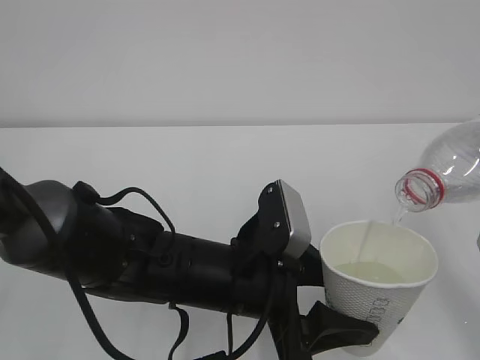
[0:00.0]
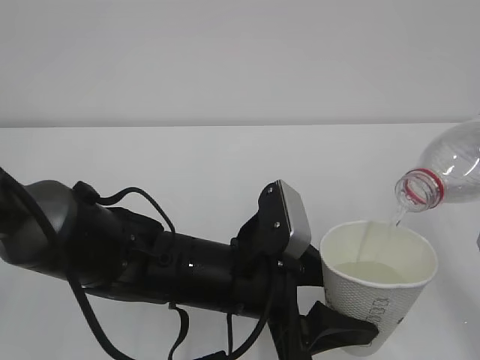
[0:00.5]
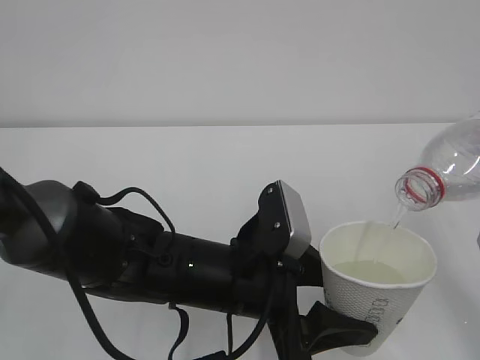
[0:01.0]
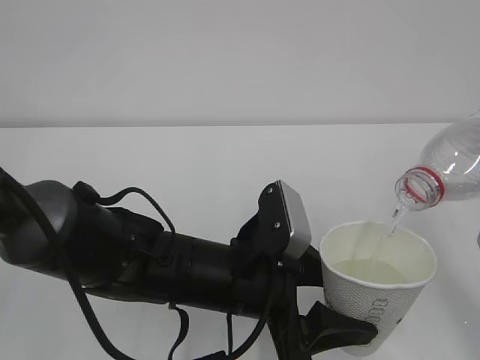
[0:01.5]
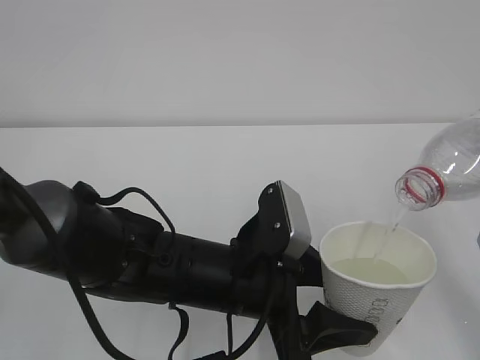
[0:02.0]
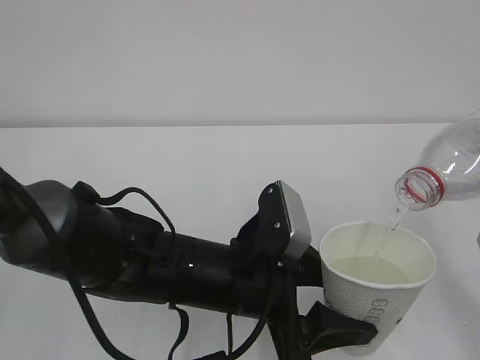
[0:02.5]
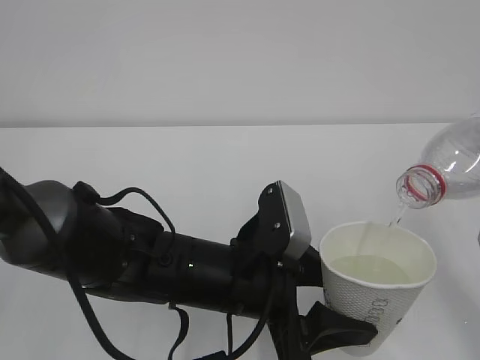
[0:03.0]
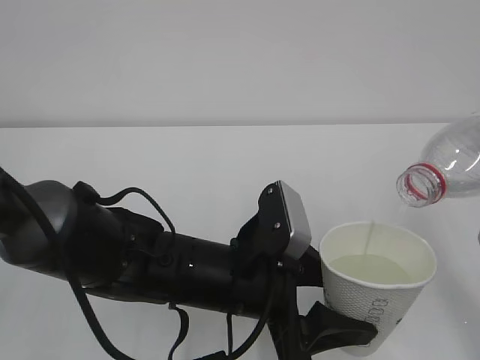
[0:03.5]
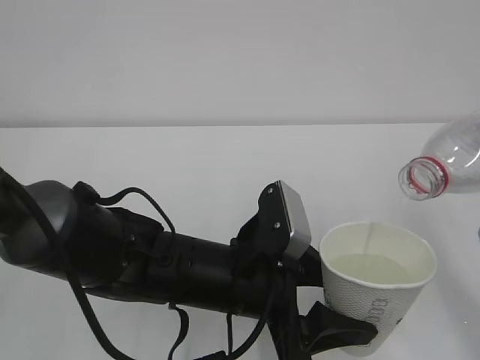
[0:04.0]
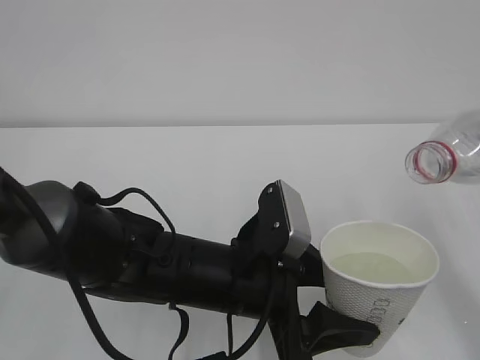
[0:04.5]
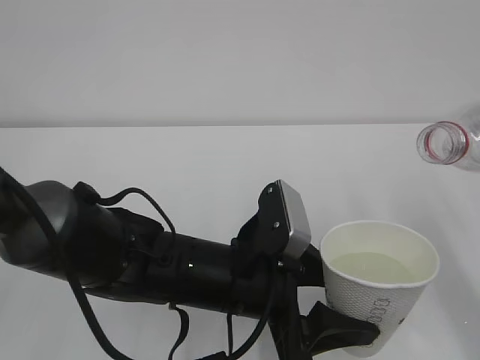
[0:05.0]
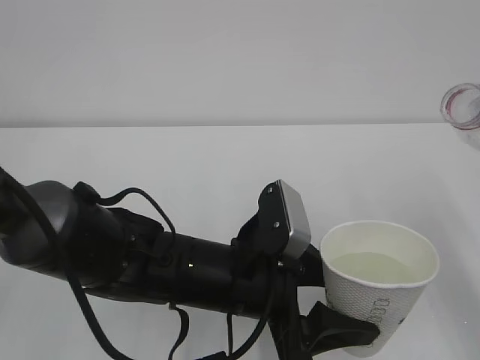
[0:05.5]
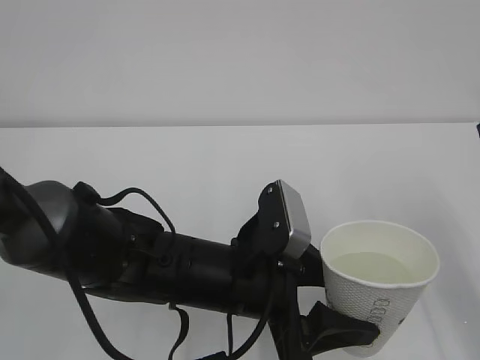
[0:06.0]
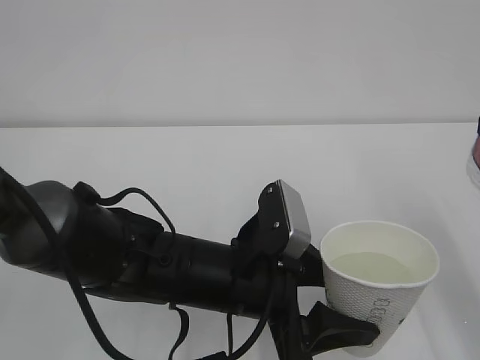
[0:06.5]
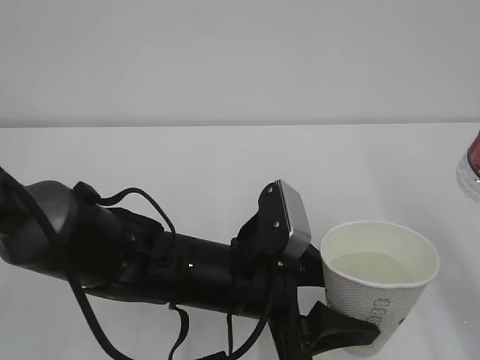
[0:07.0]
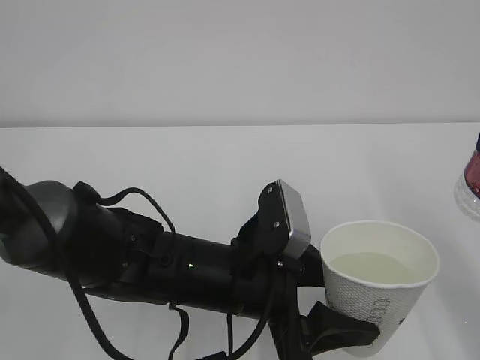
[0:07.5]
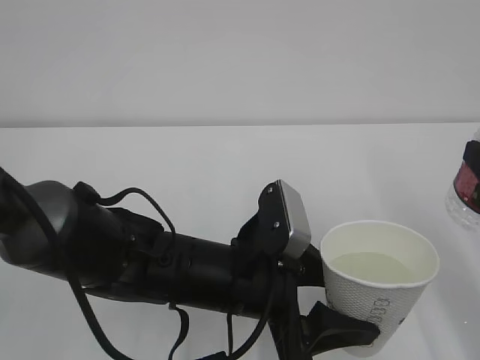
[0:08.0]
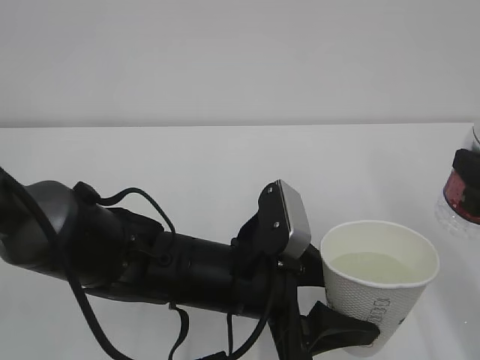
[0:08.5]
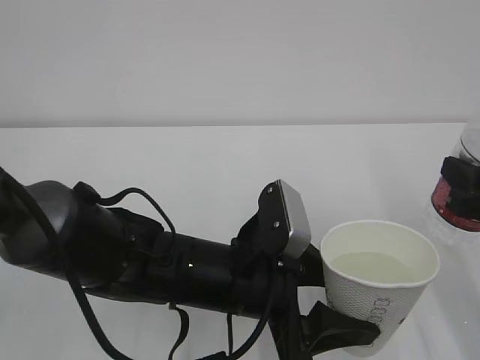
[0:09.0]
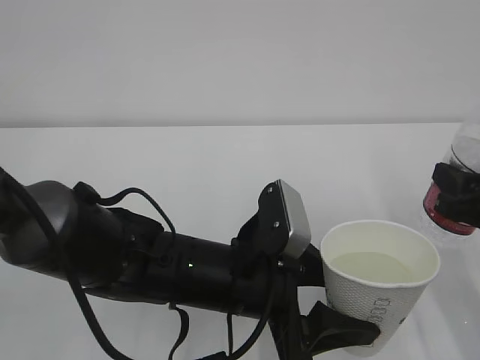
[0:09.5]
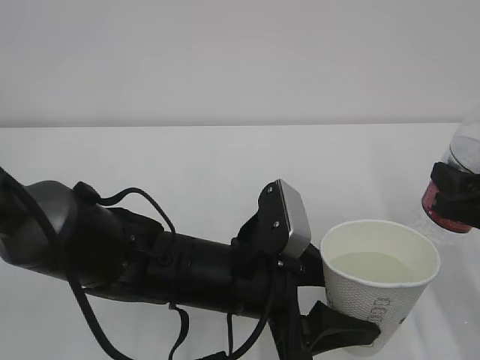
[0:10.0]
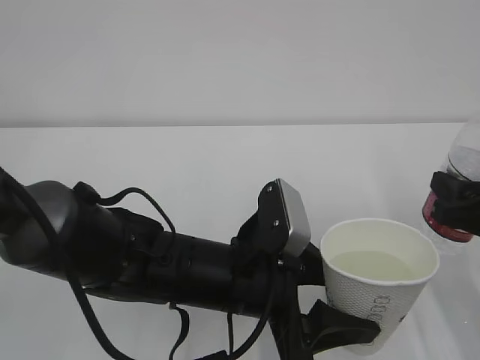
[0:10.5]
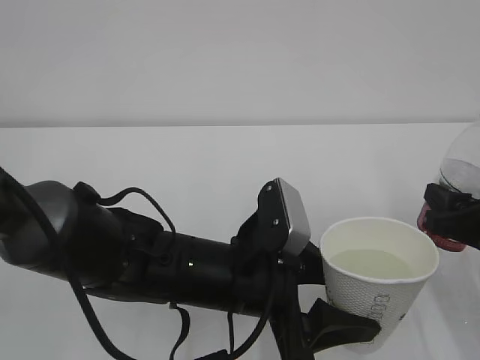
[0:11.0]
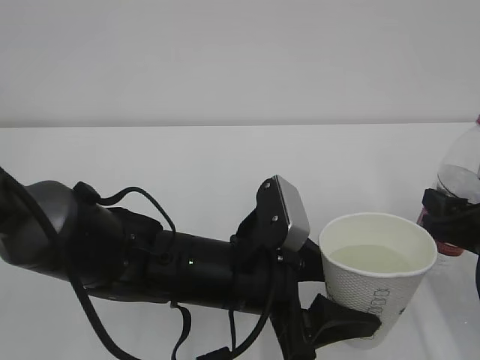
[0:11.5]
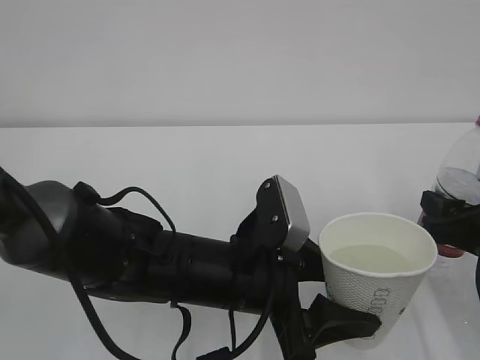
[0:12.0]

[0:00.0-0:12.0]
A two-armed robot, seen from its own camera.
0.0 to 4.0 s: Both grippers stay about where they are.
8.0 to 10.0 s: The right gripper shifts some 5 cm downward.
10.0 to 12.0 s: The grippers make only small movements.

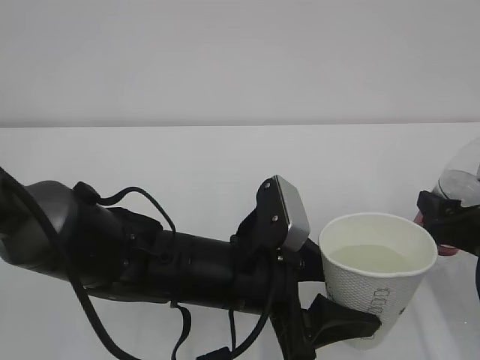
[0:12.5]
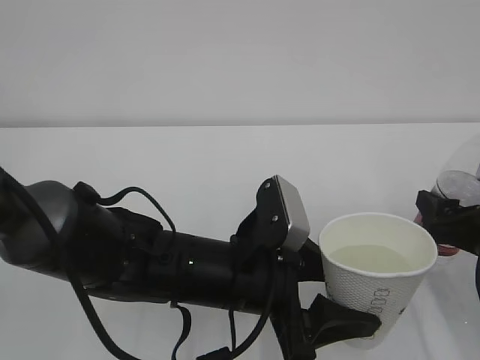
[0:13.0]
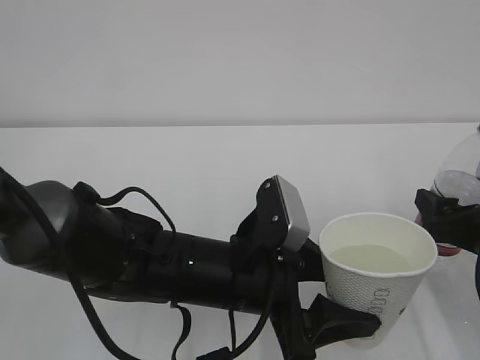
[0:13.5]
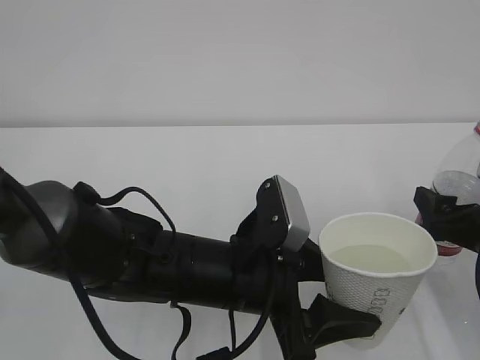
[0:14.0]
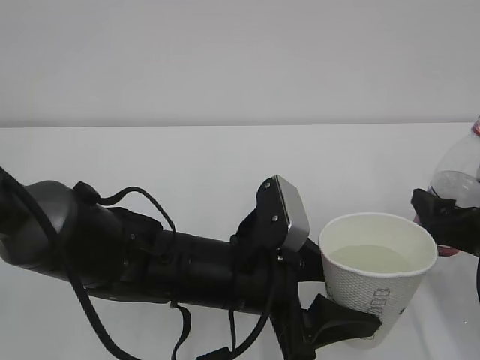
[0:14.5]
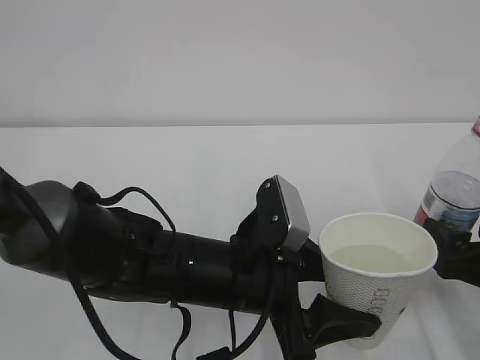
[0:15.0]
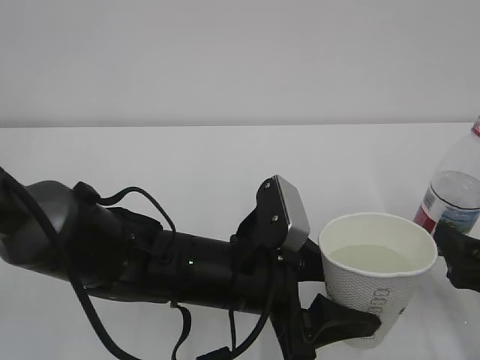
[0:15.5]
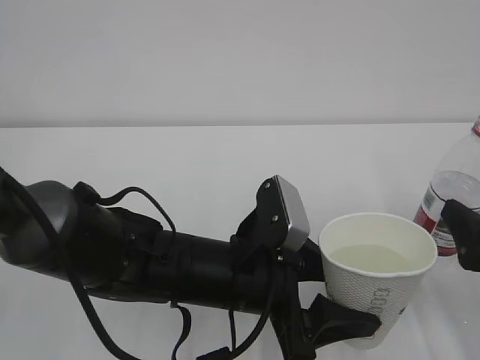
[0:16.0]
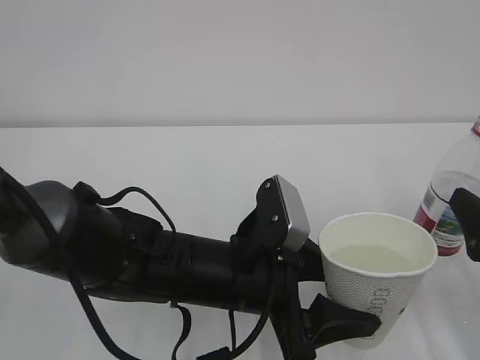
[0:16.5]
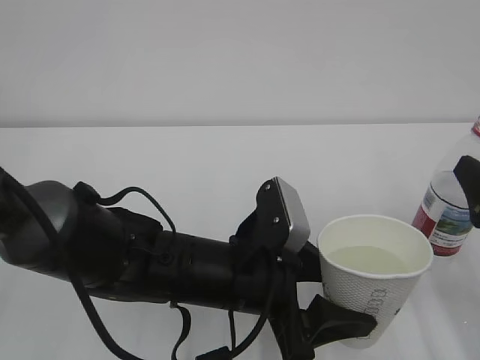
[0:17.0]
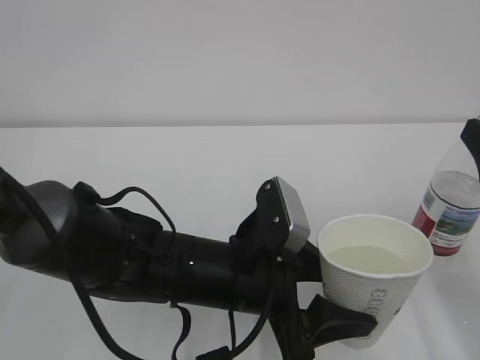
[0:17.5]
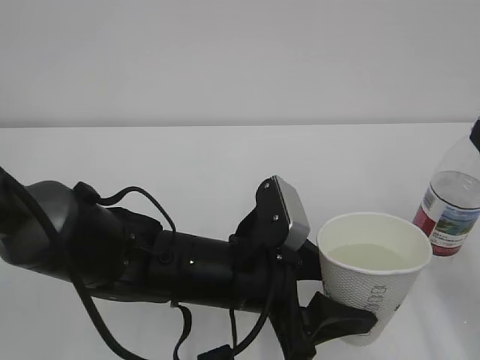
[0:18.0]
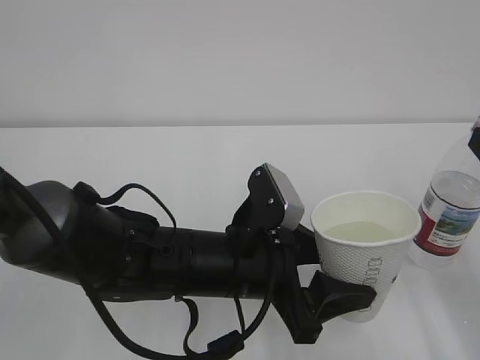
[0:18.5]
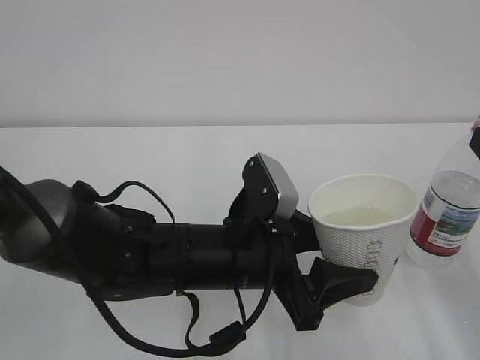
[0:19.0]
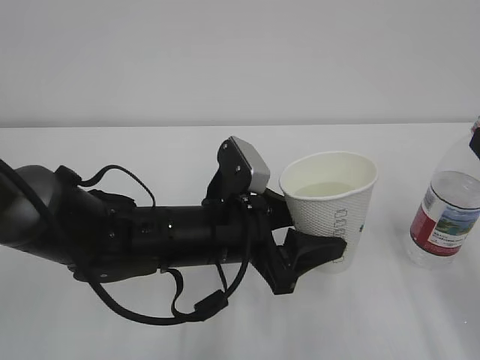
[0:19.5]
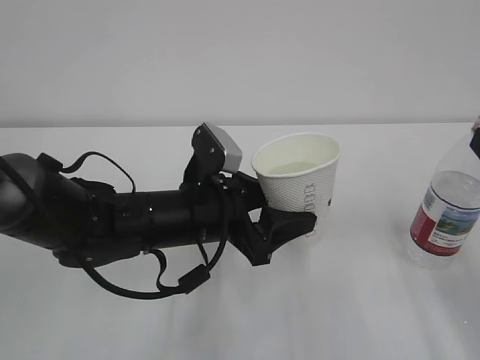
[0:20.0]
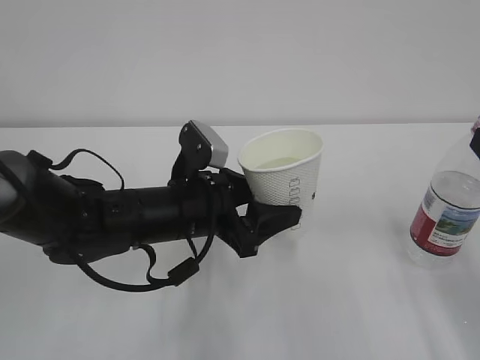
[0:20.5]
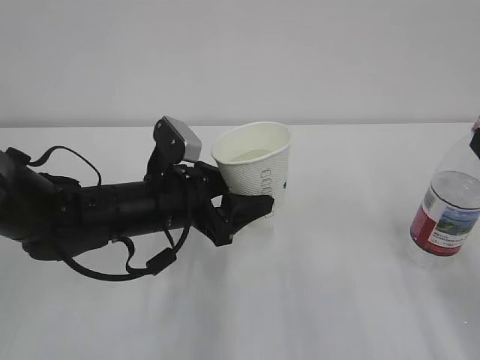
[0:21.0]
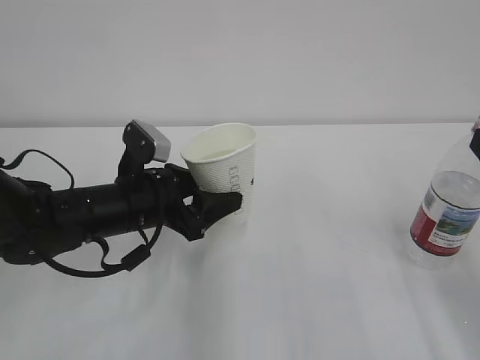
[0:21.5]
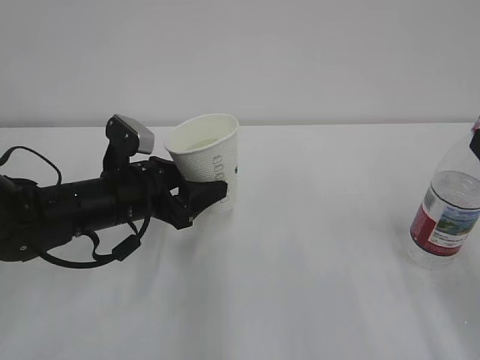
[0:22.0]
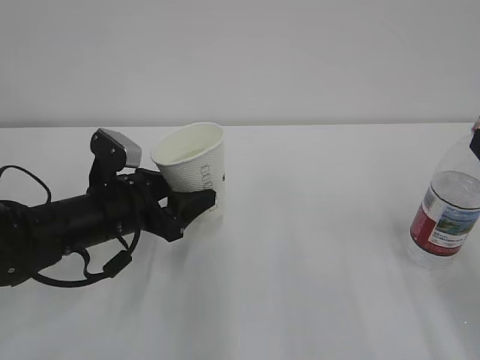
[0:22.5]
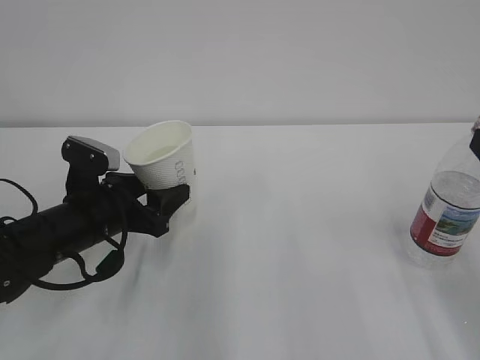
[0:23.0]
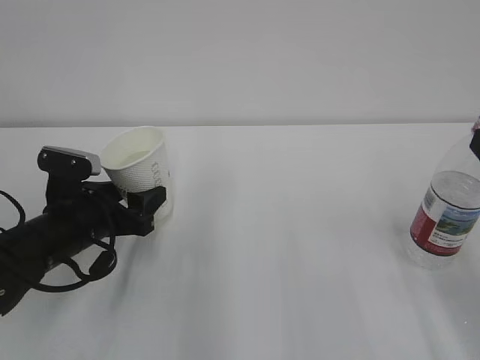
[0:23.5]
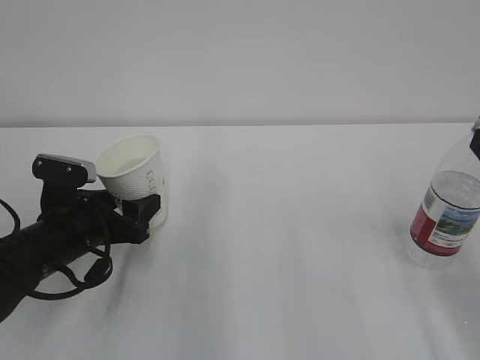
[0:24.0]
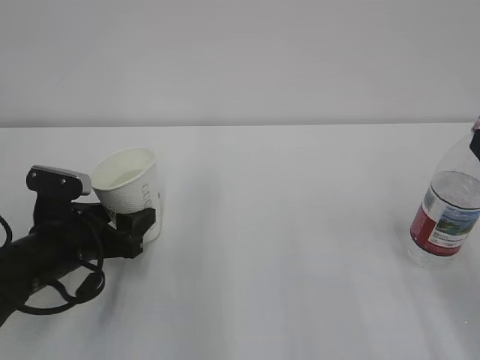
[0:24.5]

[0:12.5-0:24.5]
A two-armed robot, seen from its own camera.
14.5 to 16.5 s: The right gripper travels backward by about 5 cm.
16.5 to 18.5 s: The right gripper shifts about 5 cm upward.
18.5 to 20.5 s: The left gripper is displaced forward and to the left by approximately 10 cm.
20.5 to 22.5 s: The left gripper heads to the left, covering roughly 10 cm.
22.5 to 24.5 s: The left gripper shifts by some 5 cm.

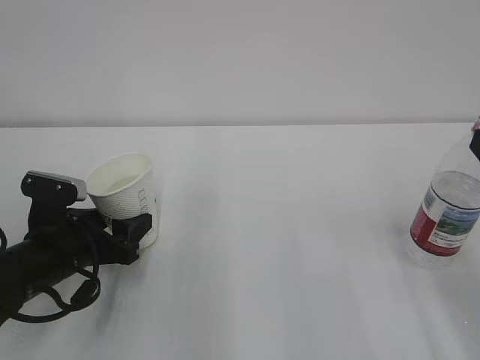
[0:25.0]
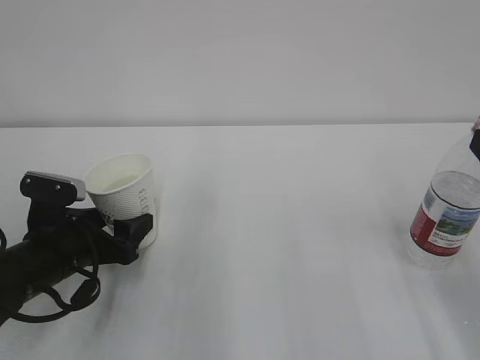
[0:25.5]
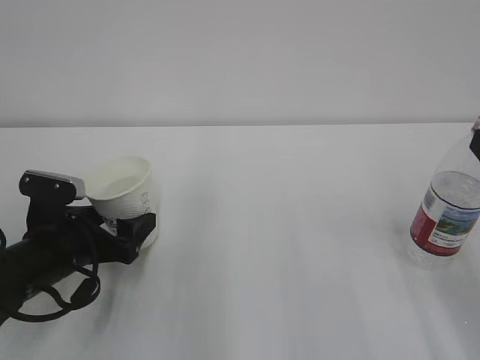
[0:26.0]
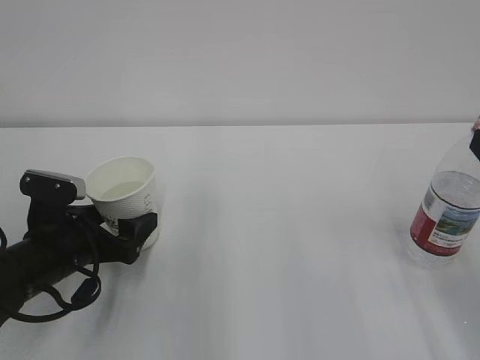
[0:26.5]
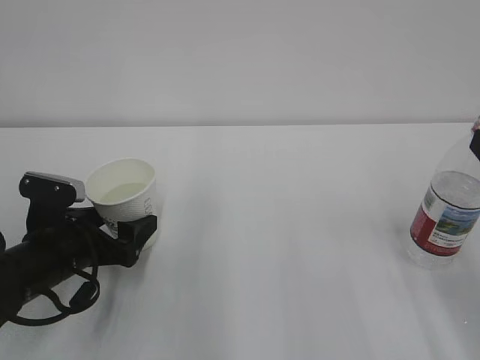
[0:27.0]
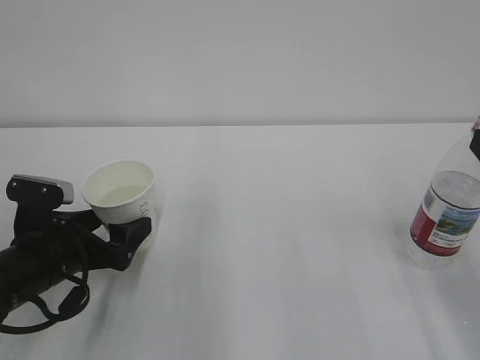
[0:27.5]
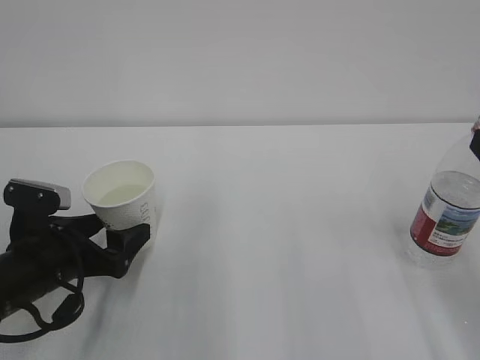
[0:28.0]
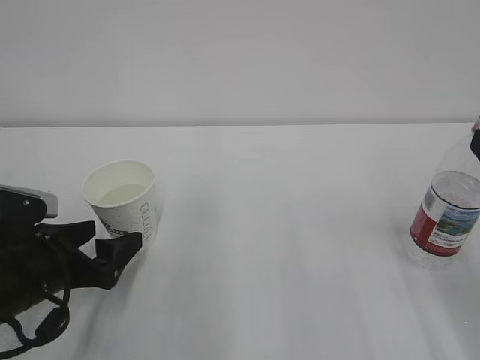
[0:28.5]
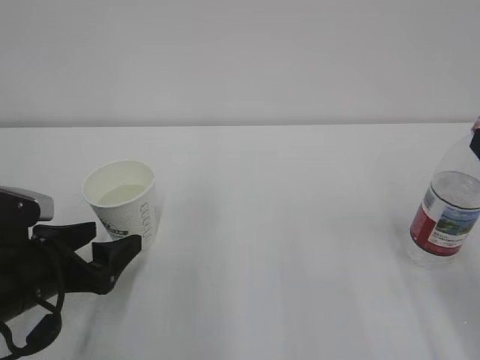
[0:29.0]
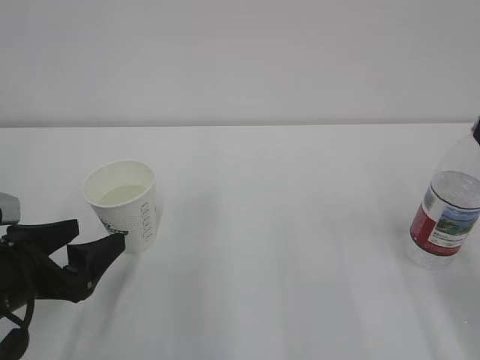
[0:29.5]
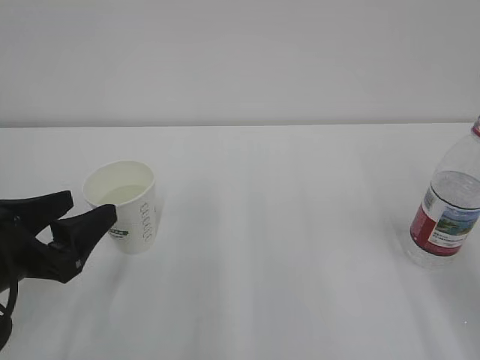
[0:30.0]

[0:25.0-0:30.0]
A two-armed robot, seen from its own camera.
25.0 to 27.5 s: The left gripper opens.
27.5 to 30.0 s: The left gripper shifts about 10 cm upward and backward, and closes its fingers.
